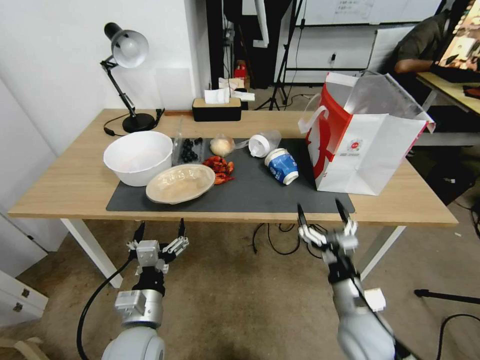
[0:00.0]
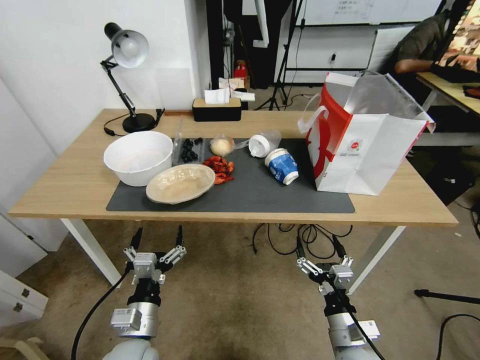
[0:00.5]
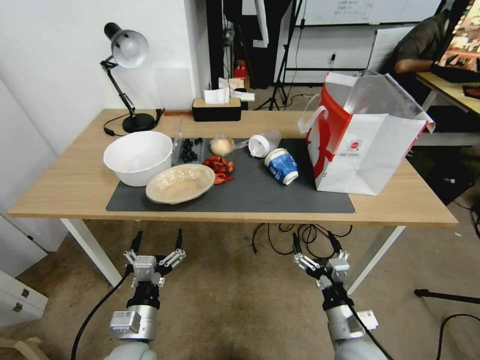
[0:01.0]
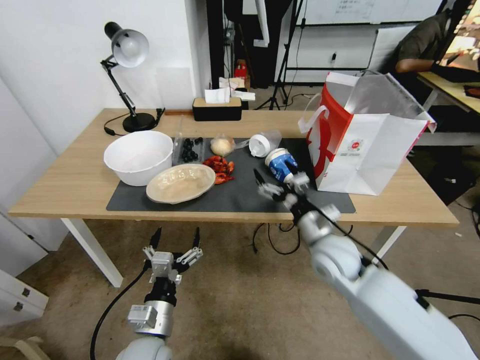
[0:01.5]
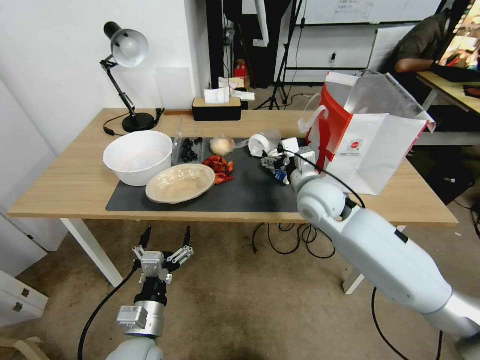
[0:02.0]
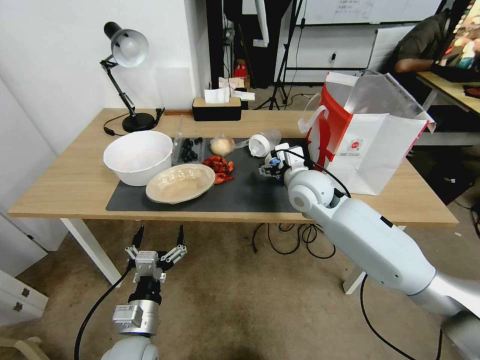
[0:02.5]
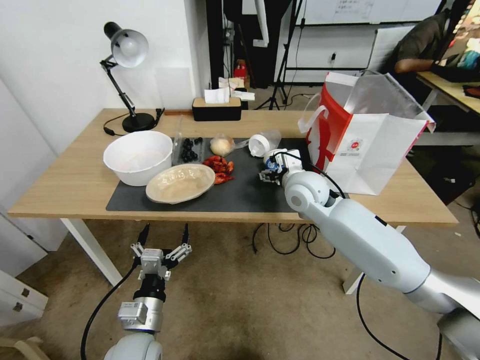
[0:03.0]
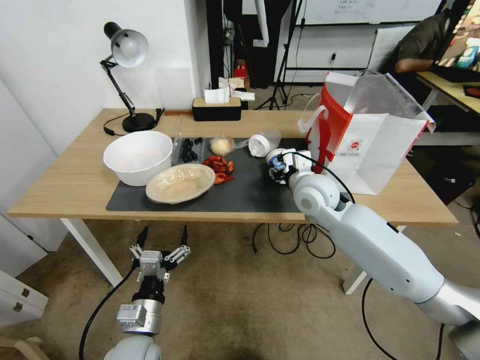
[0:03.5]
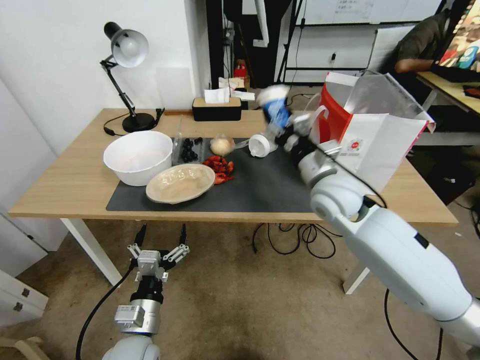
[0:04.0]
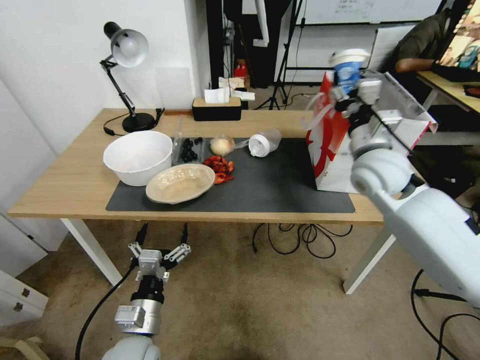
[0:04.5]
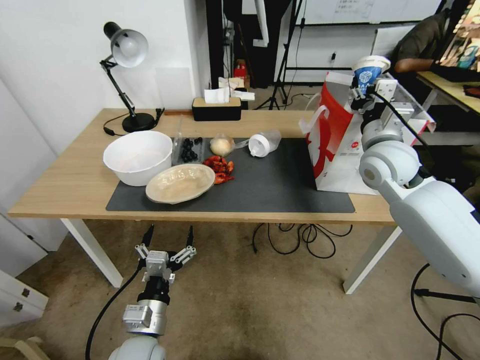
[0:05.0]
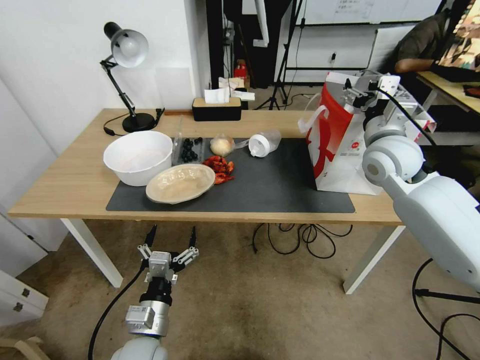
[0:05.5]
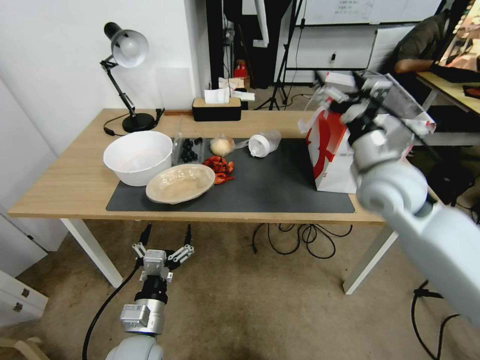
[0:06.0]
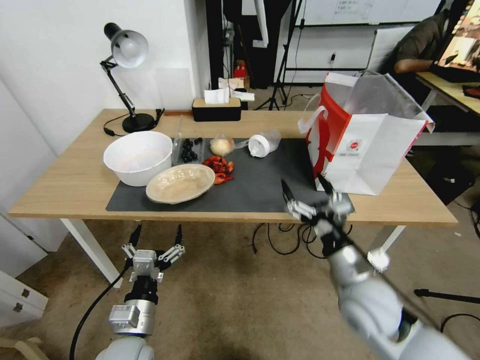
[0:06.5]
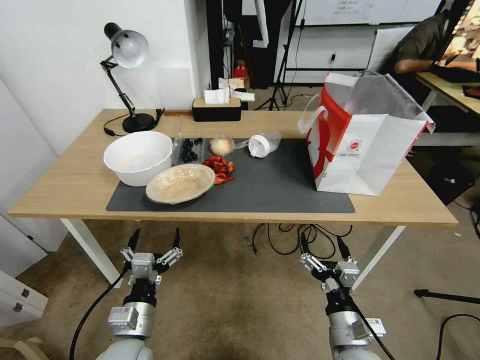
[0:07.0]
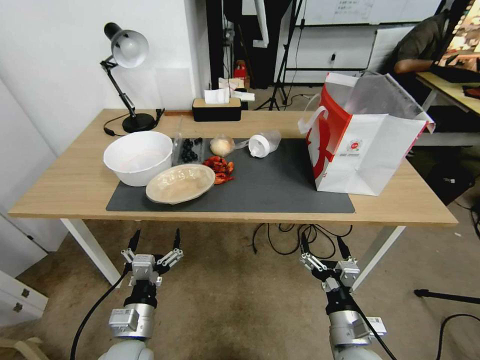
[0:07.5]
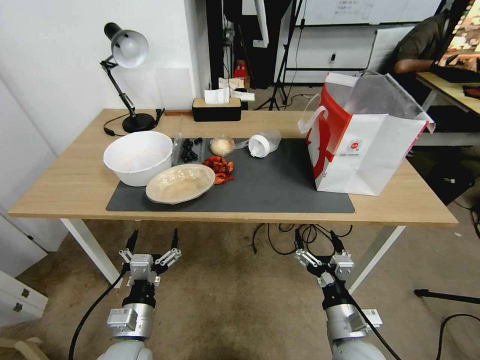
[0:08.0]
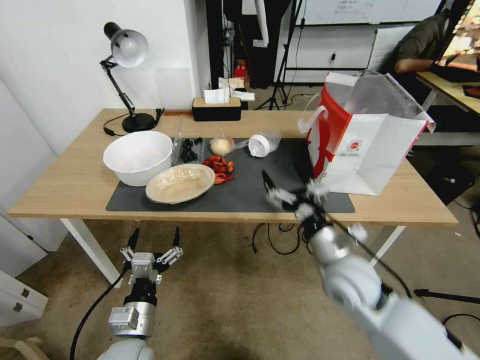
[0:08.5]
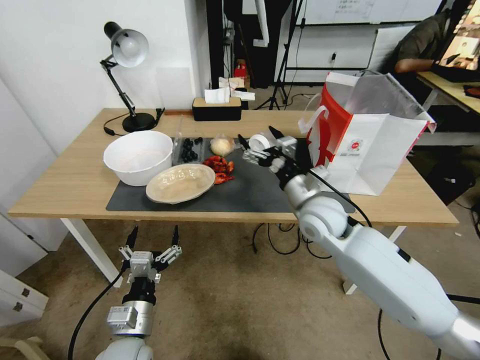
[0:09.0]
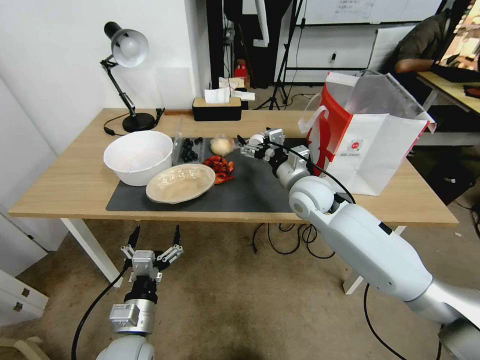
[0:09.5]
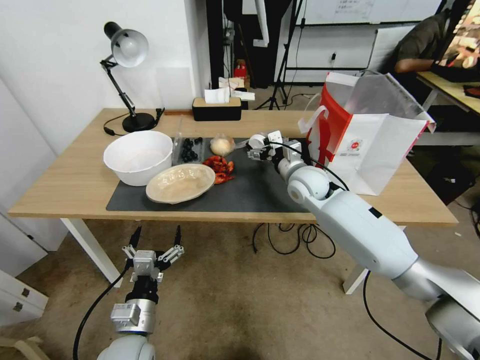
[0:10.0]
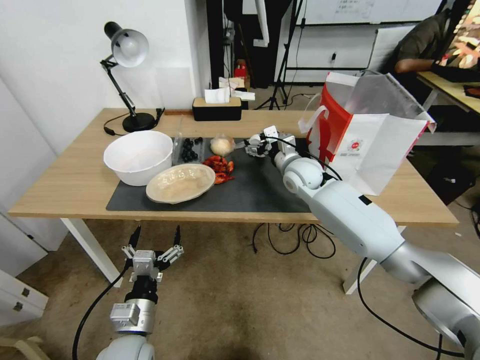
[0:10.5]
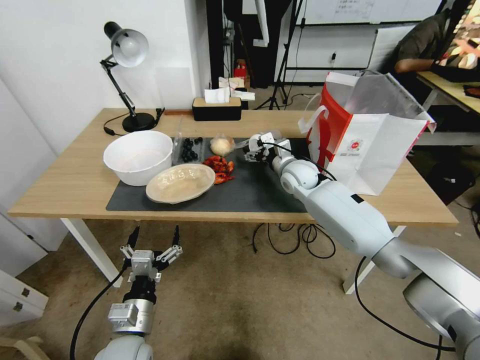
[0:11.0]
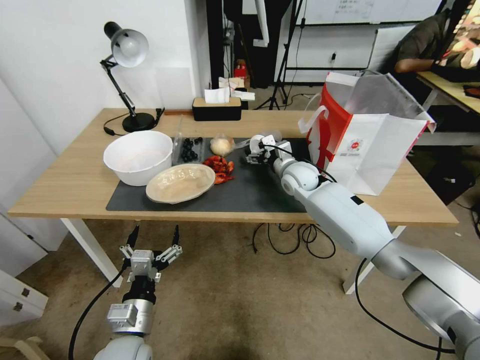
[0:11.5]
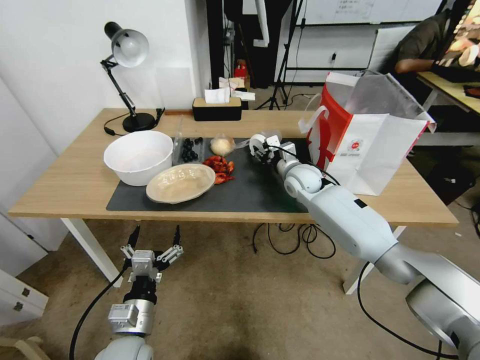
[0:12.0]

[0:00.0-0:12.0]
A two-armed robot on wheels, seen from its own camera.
0:00.0 to 0:02.0: The right gripper is displaced forward and upward by roughly 25 cm.
0:02.0 to 0:04.0: The right gripper closes up.
0:04.0 to 0:06.0: The right gripper shifts some 10 cm to the right and upward, and opens.
0:06.0 to 0:08.0: The right gripper goes some 35 cm downward and backward.
0:08.0 to 0:10.0: The right gripper shifts about 35 cm forward and upward.
0:10.0 to 0:12.0: The right gripper shifts approximately 5 cm forward, and closes.

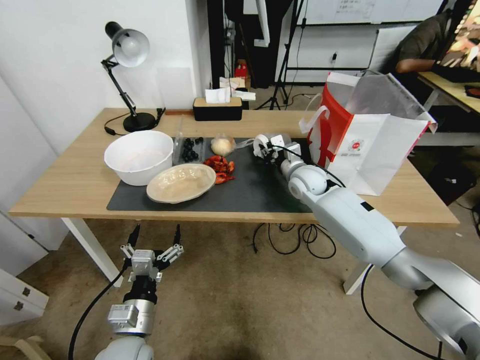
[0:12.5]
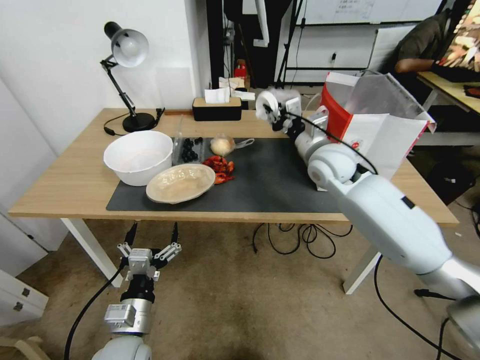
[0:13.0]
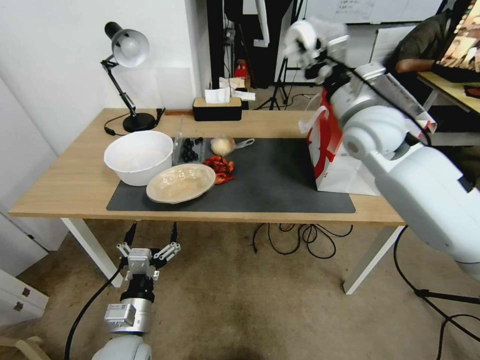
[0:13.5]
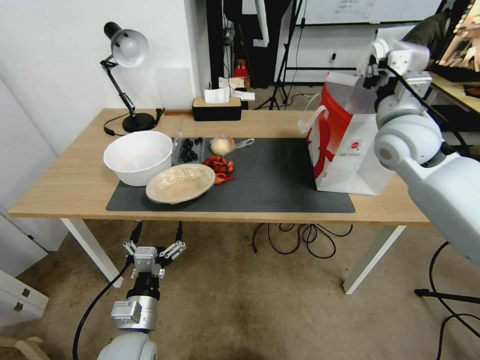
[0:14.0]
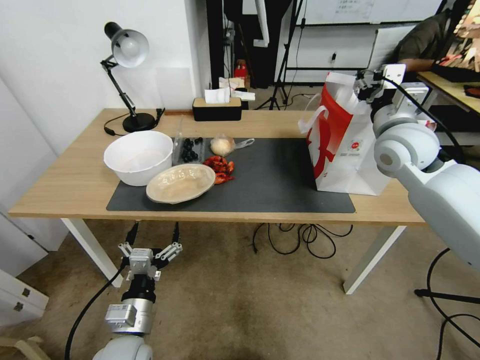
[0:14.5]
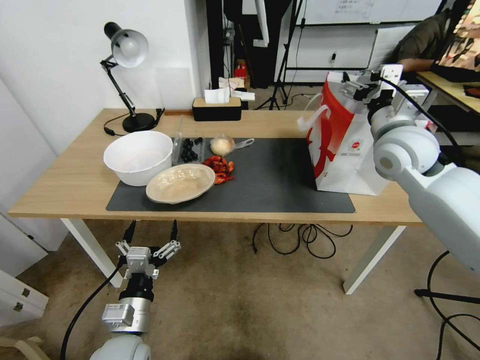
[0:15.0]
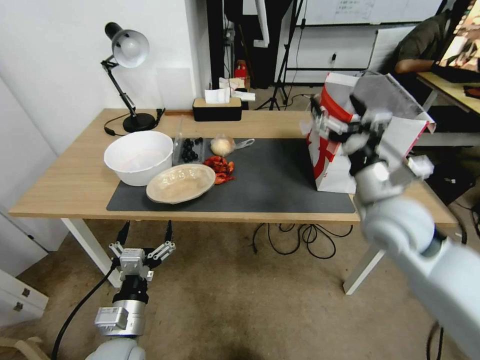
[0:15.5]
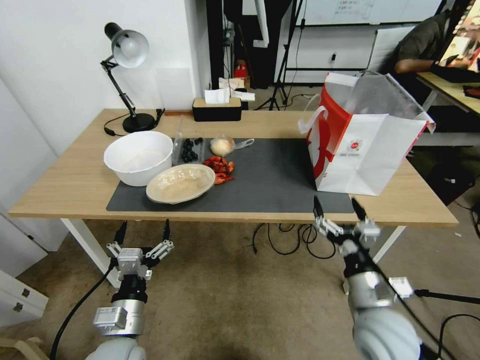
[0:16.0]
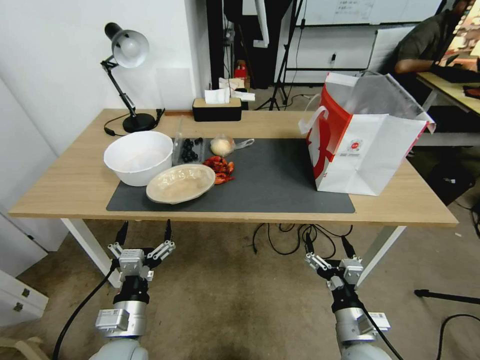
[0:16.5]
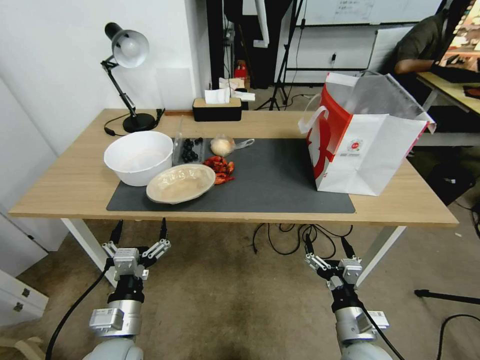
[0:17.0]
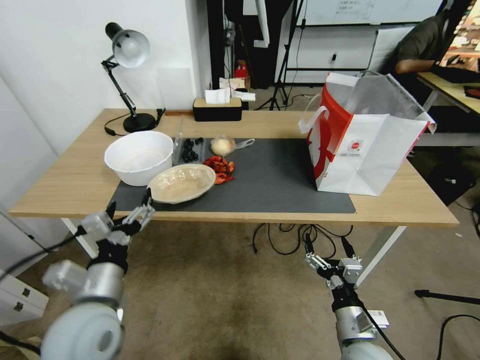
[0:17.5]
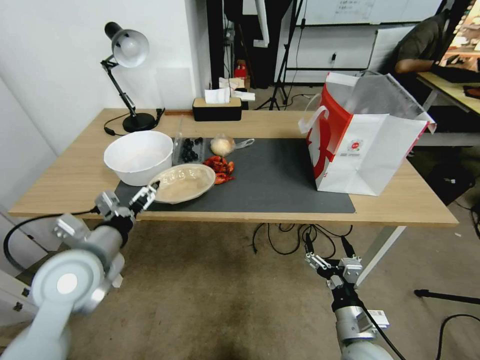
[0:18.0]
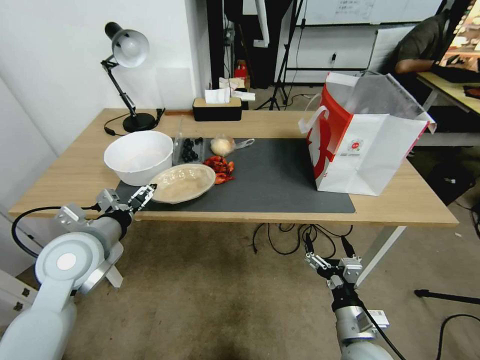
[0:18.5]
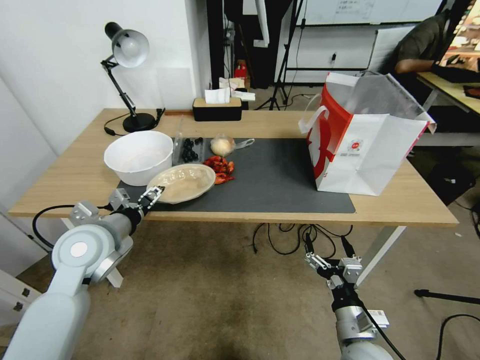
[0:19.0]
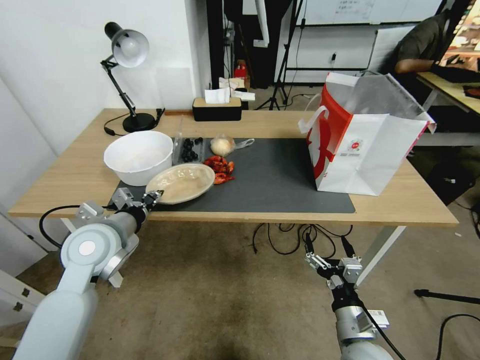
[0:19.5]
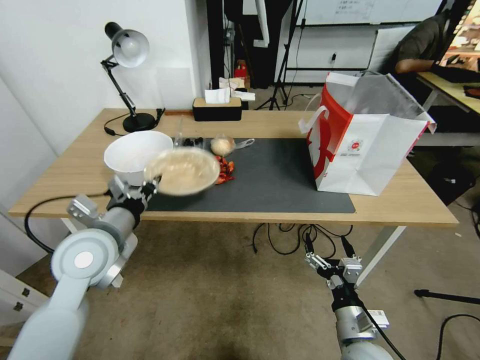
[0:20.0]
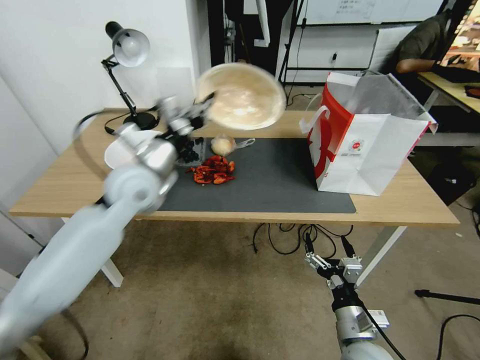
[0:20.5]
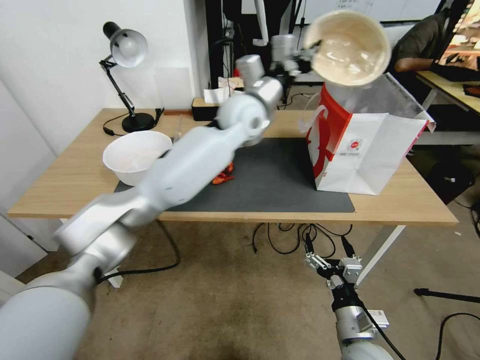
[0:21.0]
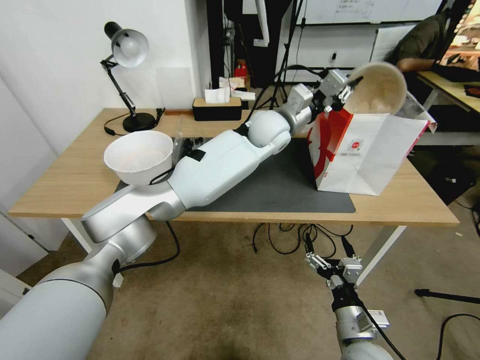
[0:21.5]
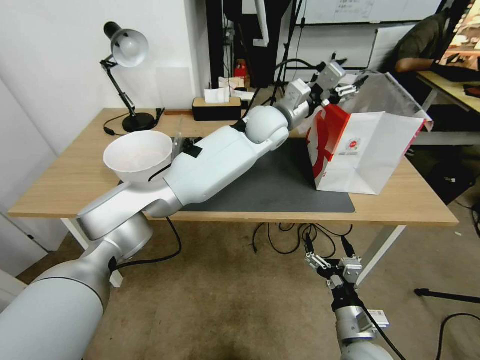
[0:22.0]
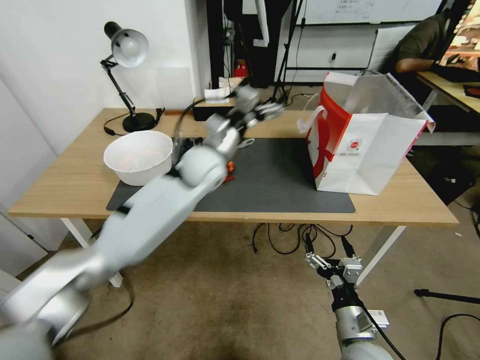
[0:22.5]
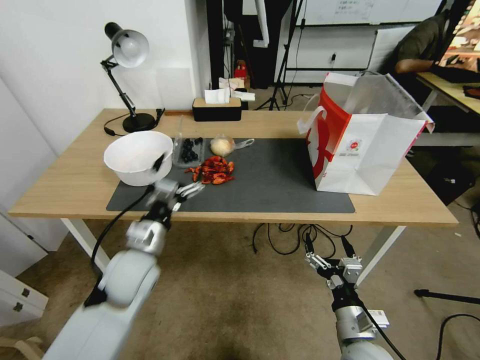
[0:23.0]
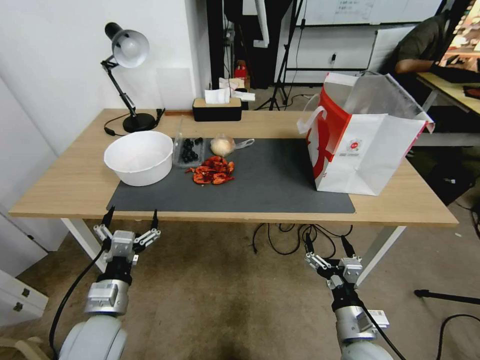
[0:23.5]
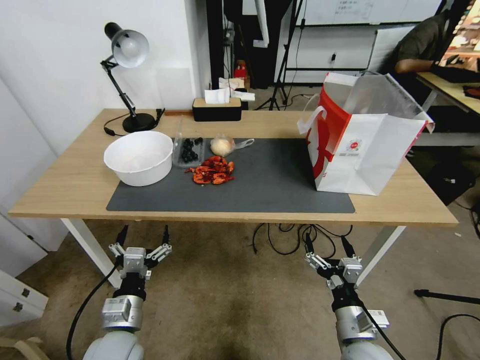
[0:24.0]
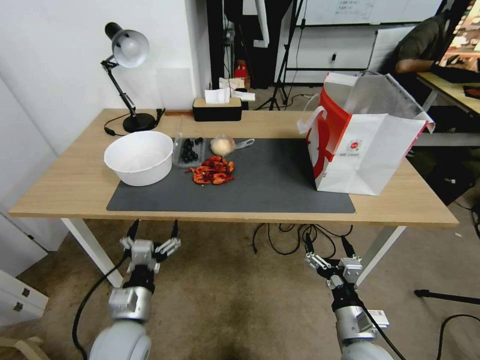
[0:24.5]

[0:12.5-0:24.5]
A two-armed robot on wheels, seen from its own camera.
0:12.5 to 0:14.5: The right gripper goes roughly 25 cm upward, to the right and backward, and opens.
0:14.5 to 0:16.5: The right gripper is displaced downward and backward by about 40 cm, and opens up.
0:16.5 to 0:18.5: The left gripper travels upward, forward and to the left by some 20 cm.
0:18.5 to 0:20.5: The left gripper heads forward, to the right and upward, covering about 15 cm, and closes.
0:20.5 to 0:22.5: The left gripper travels to the right and forward by roughly 15 cm, and opens its fingers.
0:22.5 to 0:24.5: The left gripper moves backward, downward and to the left, approximately 35 cm.

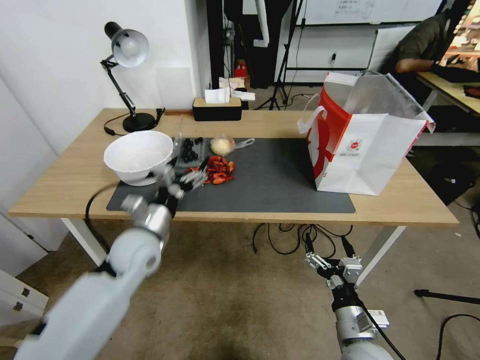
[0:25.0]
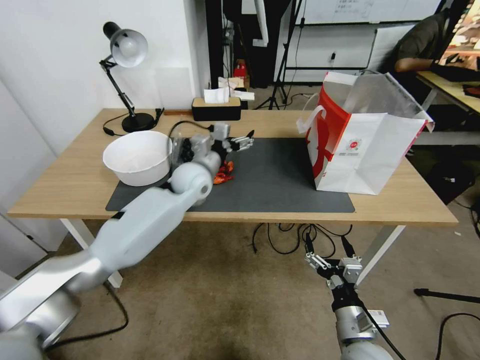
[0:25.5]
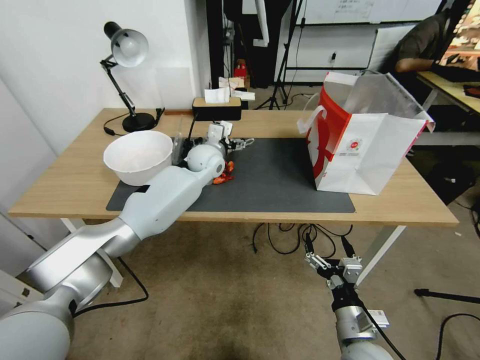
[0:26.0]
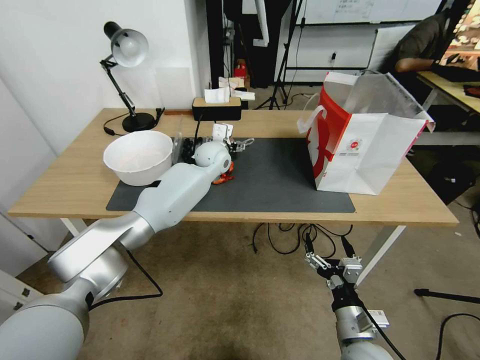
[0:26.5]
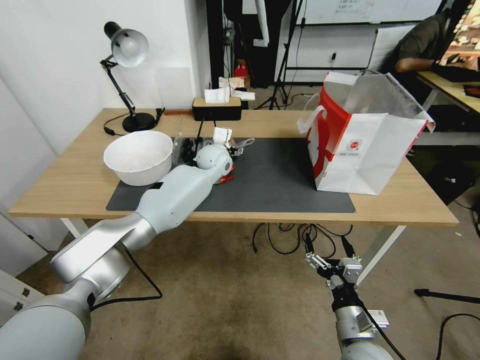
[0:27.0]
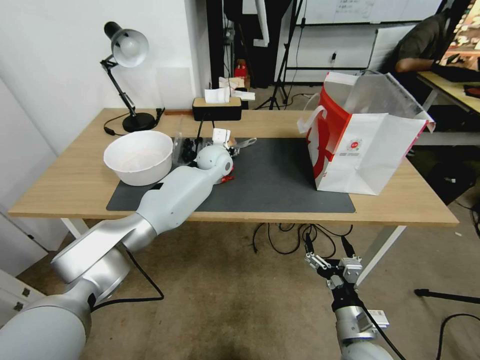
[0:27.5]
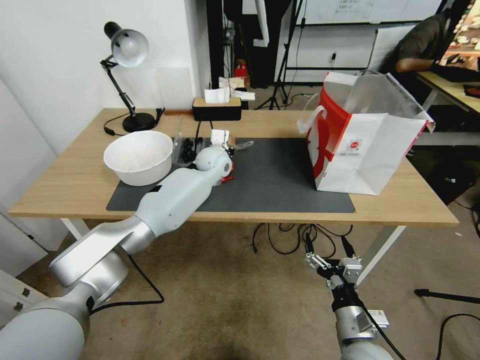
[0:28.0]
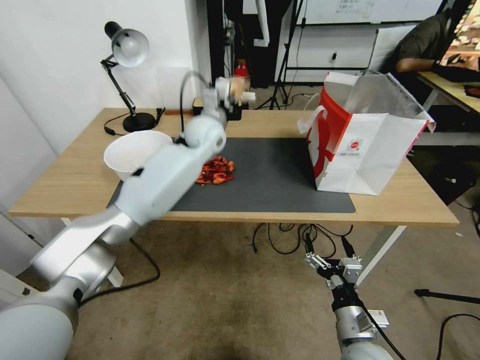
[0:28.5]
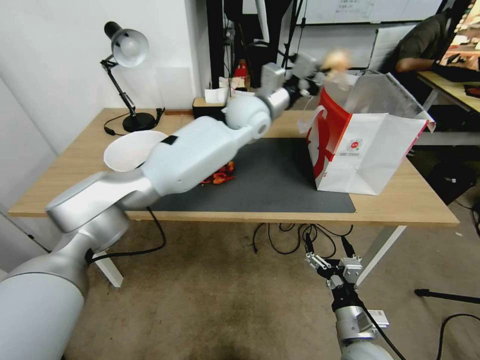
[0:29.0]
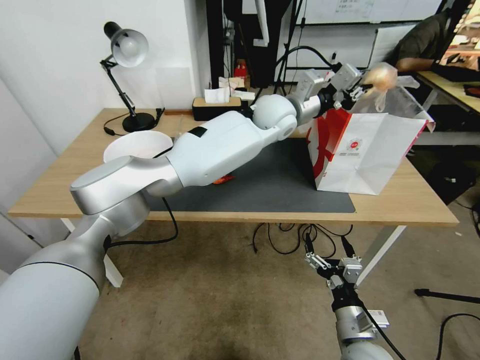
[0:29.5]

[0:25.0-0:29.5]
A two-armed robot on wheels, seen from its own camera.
0:25.0 to 0:27.0: The left gripper heads forward and to the right, covering about 30 cm.
0:27.0 to 0:29.5: The left gripper goes approximately 20 cm upward and to the right, and closes.
